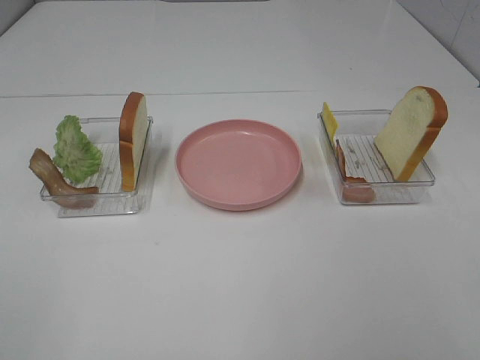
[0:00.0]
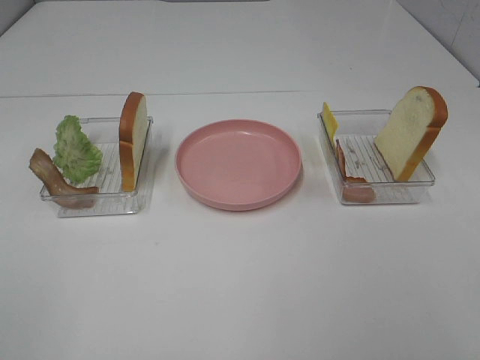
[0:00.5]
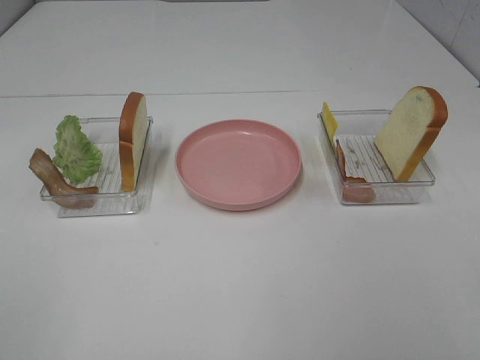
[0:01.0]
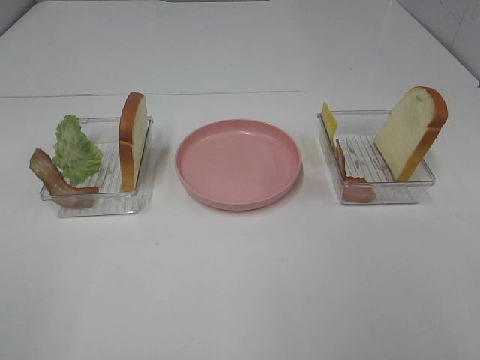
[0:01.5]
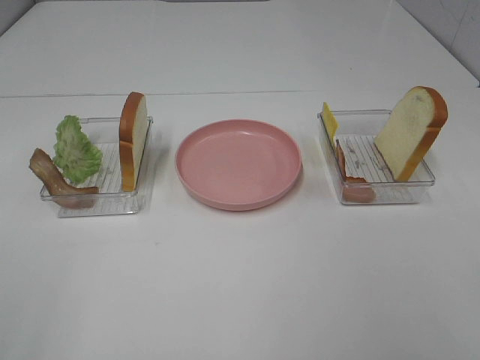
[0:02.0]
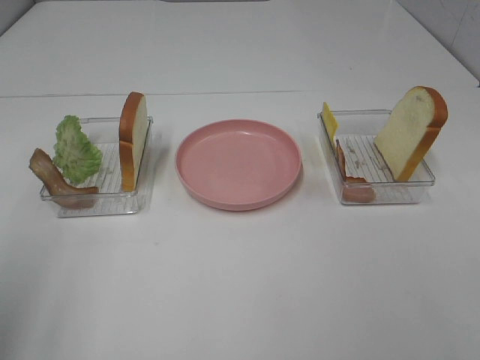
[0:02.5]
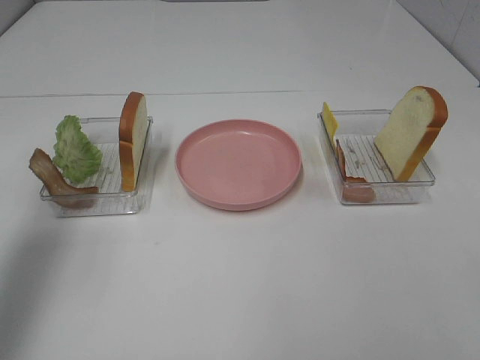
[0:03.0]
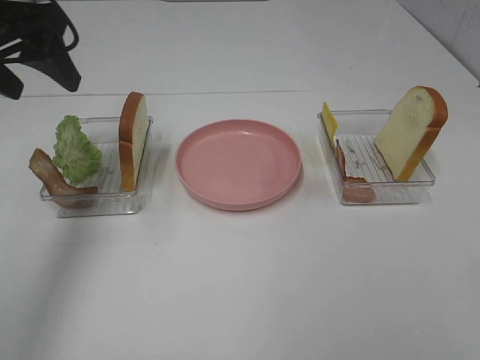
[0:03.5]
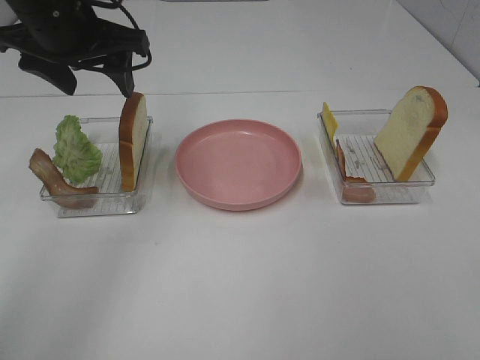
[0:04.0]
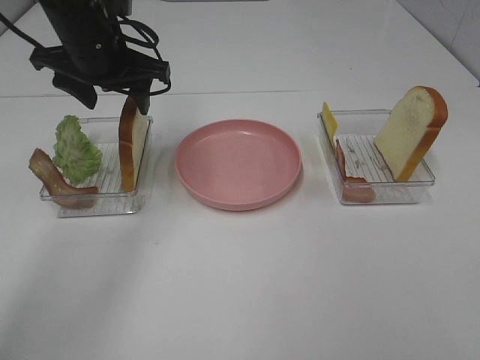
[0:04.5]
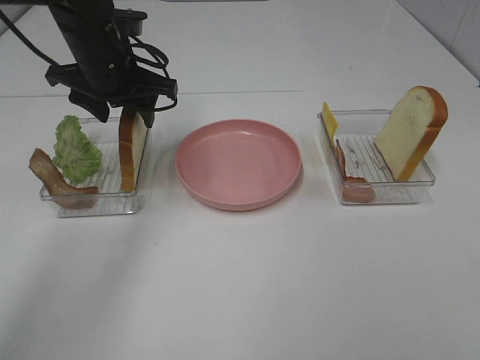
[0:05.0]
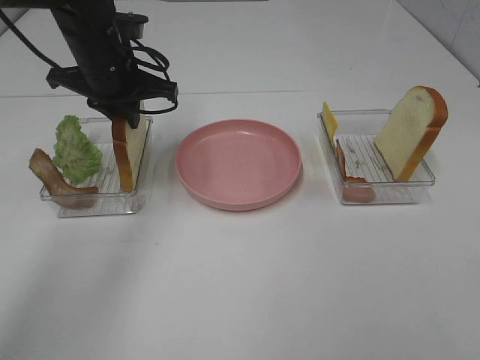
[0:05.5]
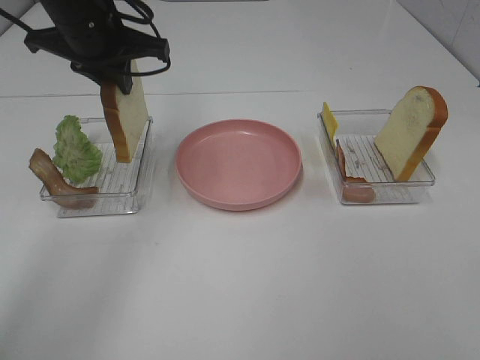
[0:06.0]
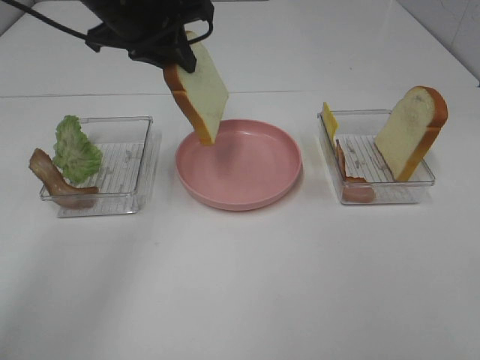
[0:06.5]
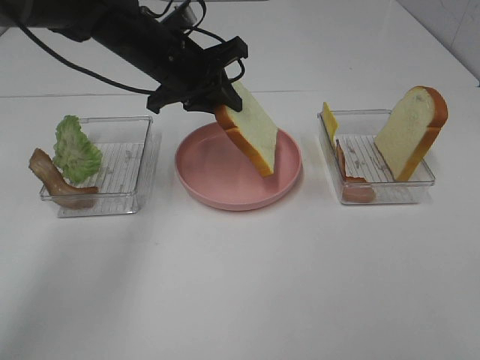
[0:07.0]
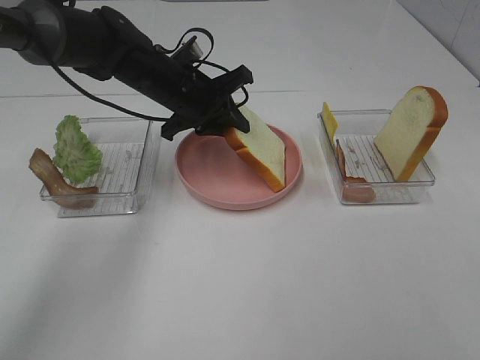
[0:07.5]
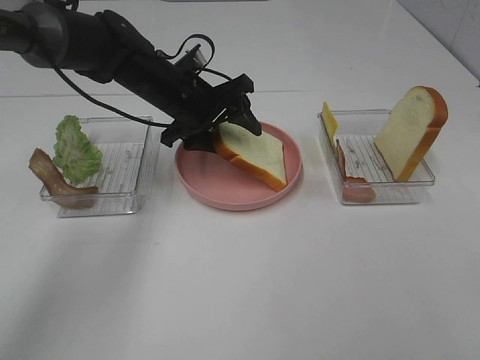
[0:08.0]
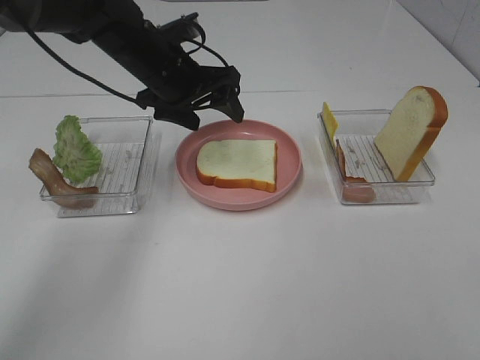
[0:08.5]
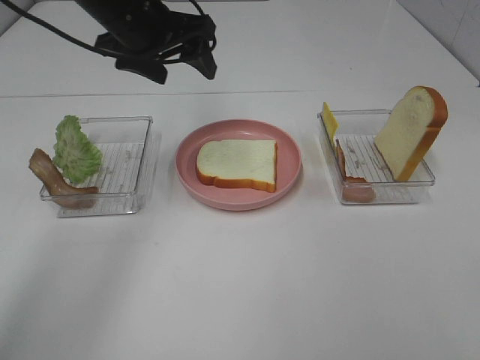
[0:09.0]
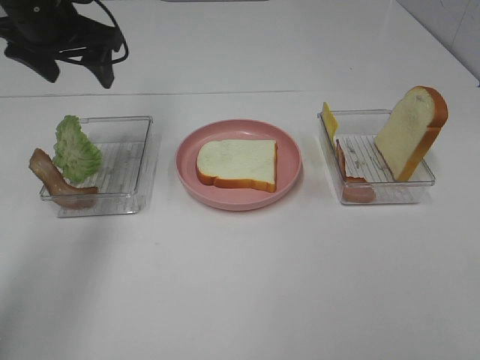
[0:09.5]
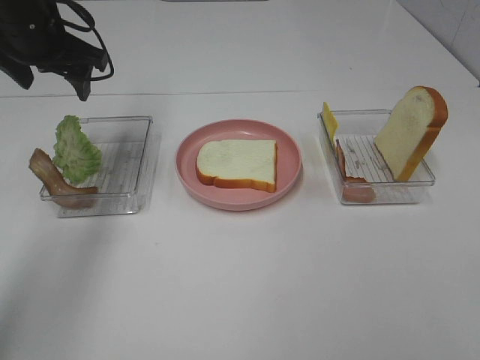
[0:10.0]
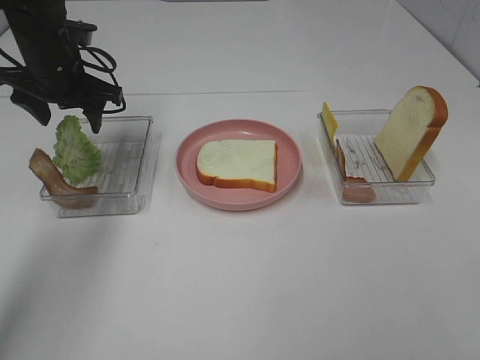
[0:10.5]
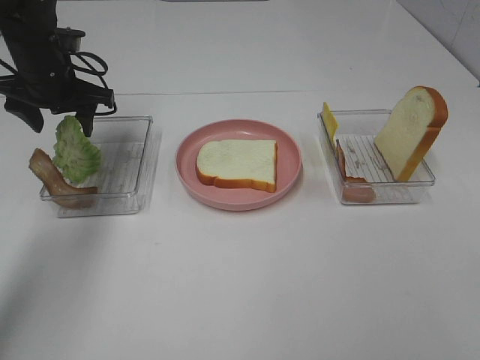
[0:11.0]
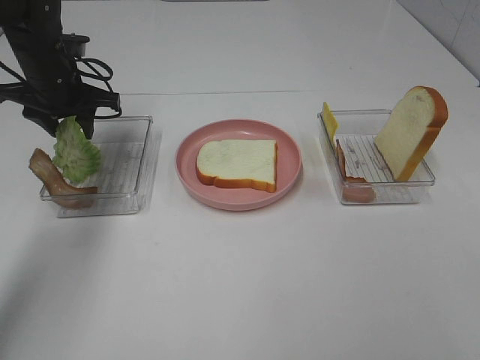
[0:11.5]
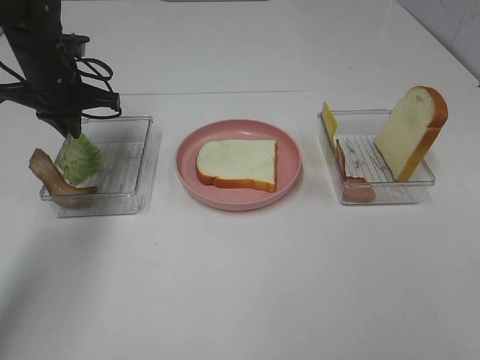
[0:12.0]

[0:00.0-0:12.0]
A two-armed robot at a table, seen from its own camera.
Task of the whole recording: Make sandwiches.
Step, 0:00.0 to 0:05.5: Left hand:grab the bread slice.
Step, 0:06.0 to 0:08.5: Left hand:place the bread slice on the plate.
0:02.0 to 0:04.0: The left gripper goes roughly 40 cm forward.
0:04.0 to 0:06.0: The left gripper reaches roughly 10 cm downward, then returns, and closes.
0:06.0 to 0:08.0: The left gripper heads downward and to the right, covering about 15 cm, and opens its fingers.
0:08.0 to 0:10.0: The left gripper goes roughly 20 cm to the left and upward.
0:10.0 to 0:12.0: The left gripper is displaced downward by some 10 cm, and closes its fingers.

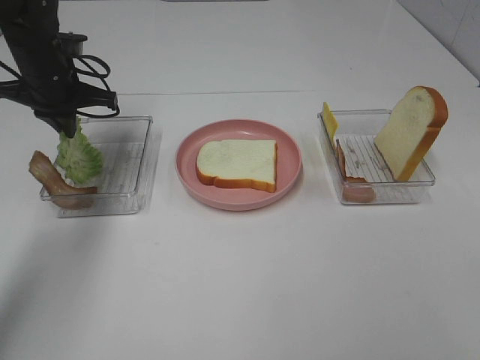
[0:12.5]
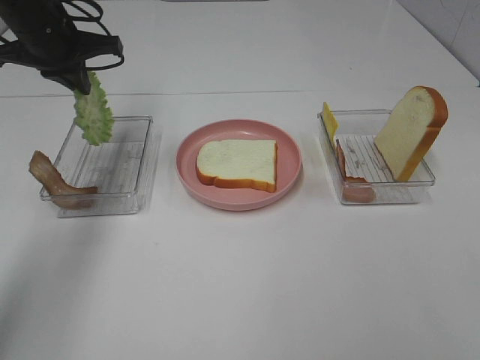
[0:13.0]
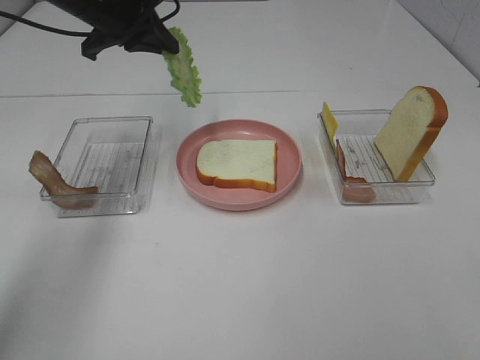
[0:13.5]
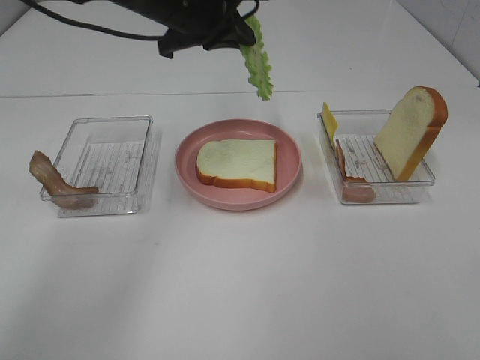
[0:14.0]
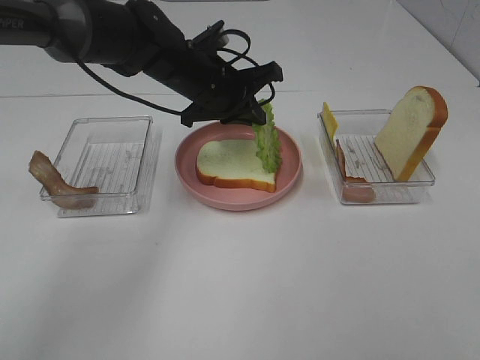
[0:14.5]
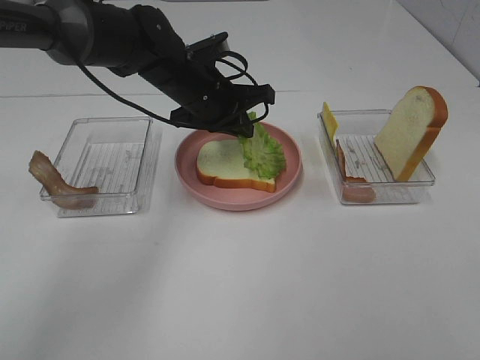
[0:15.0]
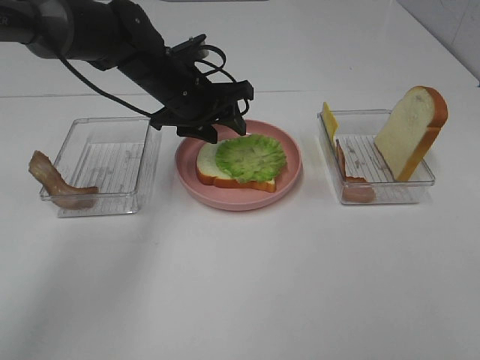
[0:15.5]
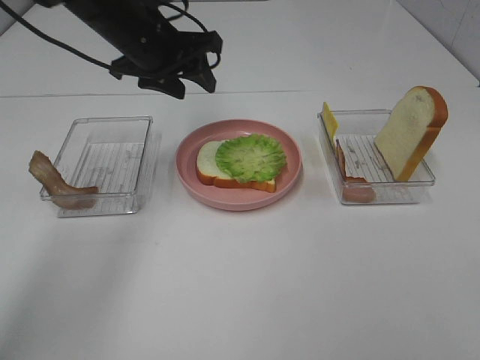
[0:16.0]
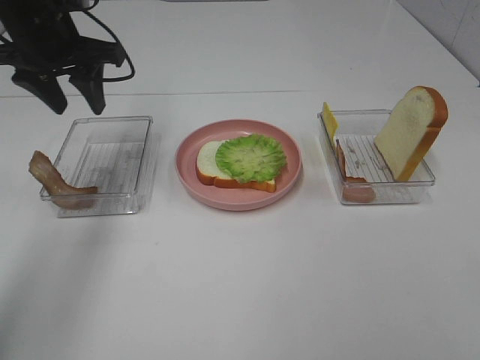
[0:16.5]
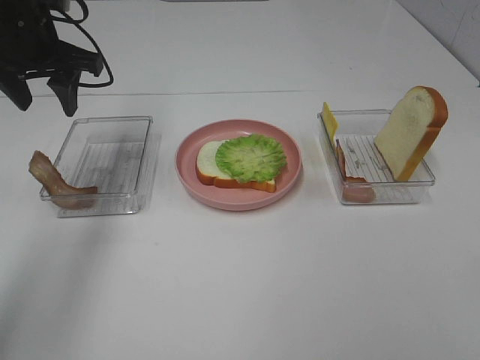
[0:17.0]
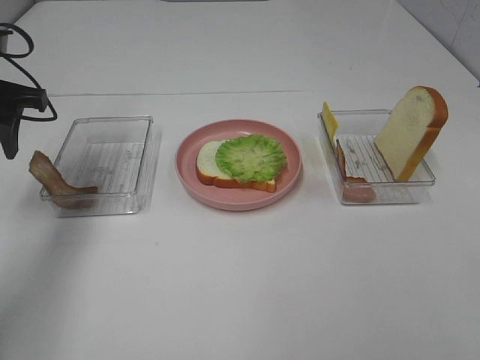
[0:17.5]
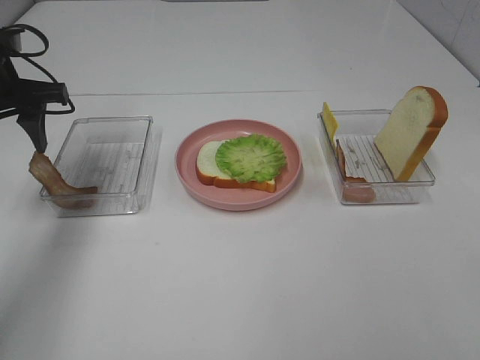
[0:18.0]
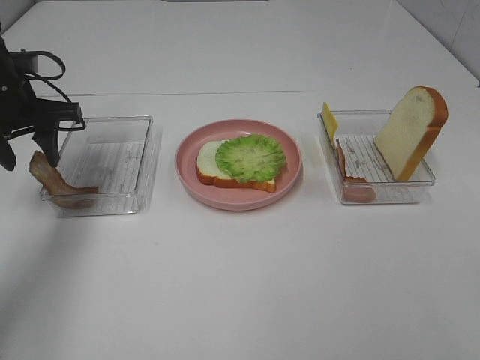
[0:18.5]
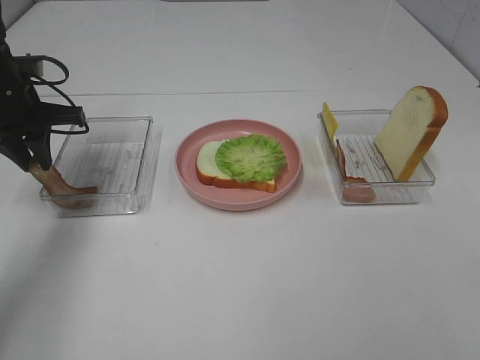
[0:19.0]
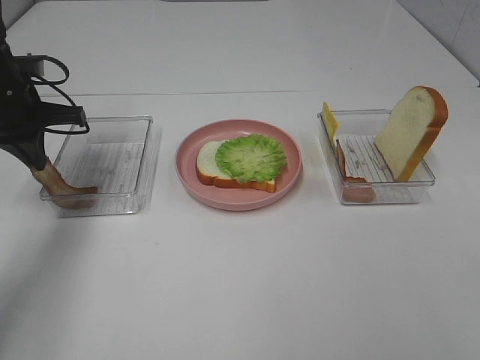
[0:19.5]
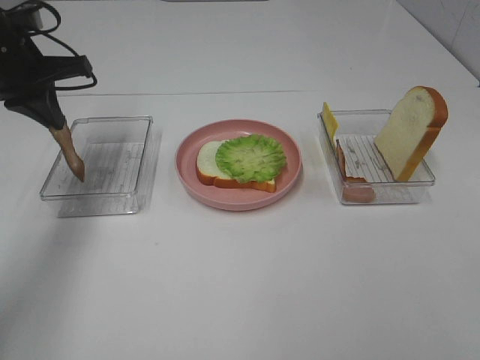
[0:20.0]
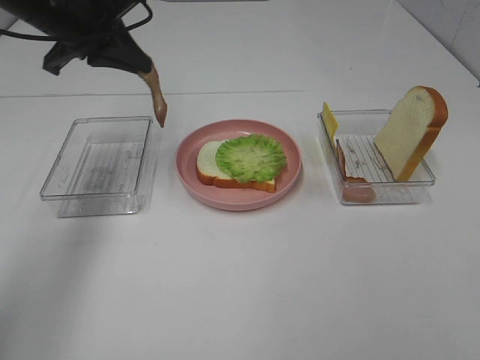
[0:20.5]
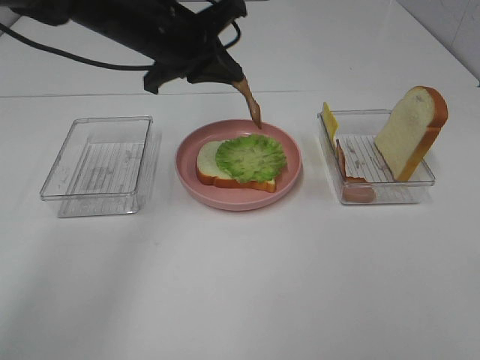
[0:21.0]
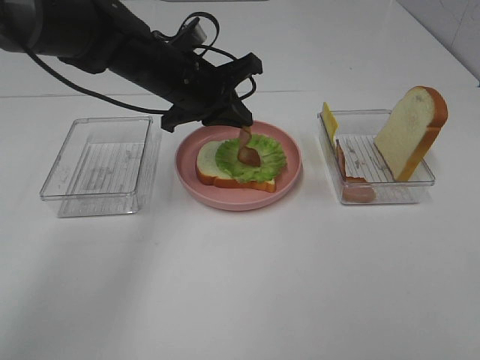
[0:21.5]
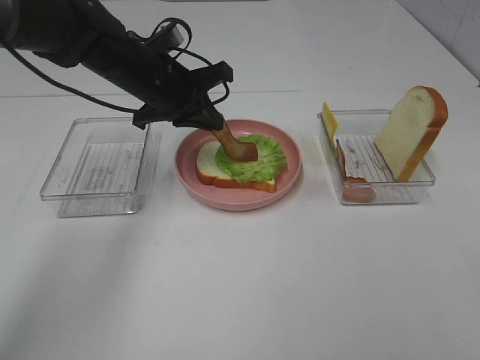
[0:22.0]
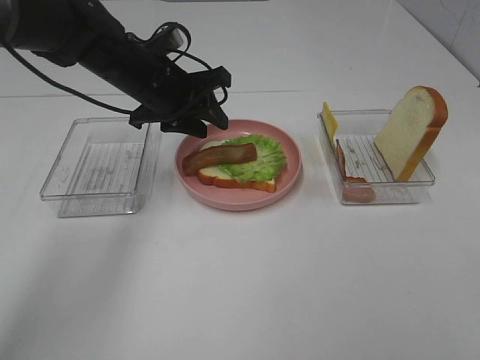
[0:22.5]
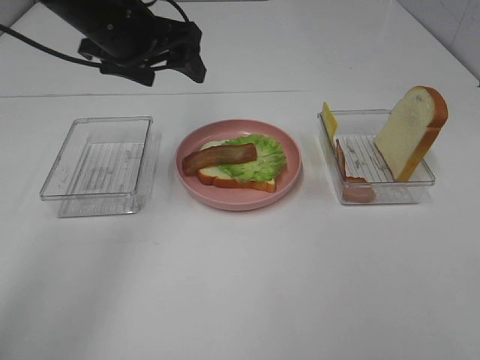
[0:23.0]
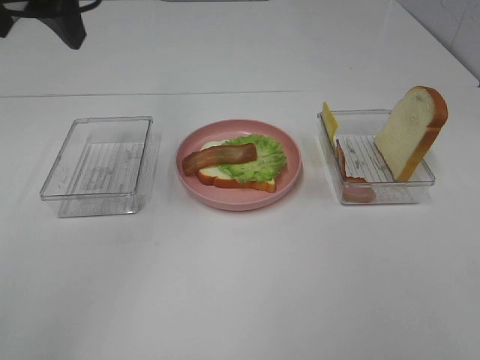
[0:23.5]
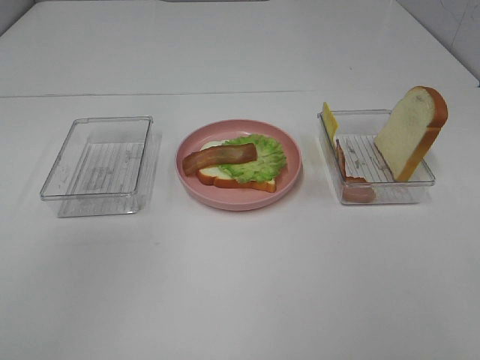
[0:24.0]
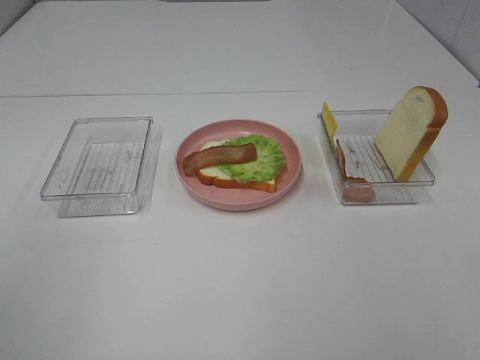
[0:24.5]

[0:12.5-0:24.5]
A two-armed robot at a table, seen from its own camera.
Task of the whole recording: Make sandwiches.
Step, 0:12.5 to 0:15.5: Left hand:place the lettuce slice on the bread slice.
Step, 0:16.0 to 0:19.5: Left hand:grab the bacon.
Step, 0:20.0 to 0:22.0: Left hand:place bacon on lettuce slice.
0:12.5 to 0:14.5: The left gripper goes roughly 20 cm to the right.
0:14.5 to 0:16.5: The left gripper heads to the left and upward, covering some 20 cm, and opens its fingers.
0:16.5 to 0:18.5: The left gripper is displaced downward and to the left by some 10 cm.
0:18.5 to 0:20.5: The left gripper shifts roughly 10 cm to the right and upward, and closes up.
0:20.5 to 0:22.5: The left gripper is displaced downward and to the right by approximately 10 cm, and opens up.
0:22.5 to 0:24.5: The left gripper shifts about 40 cm backward, upward and to the left, and opens.

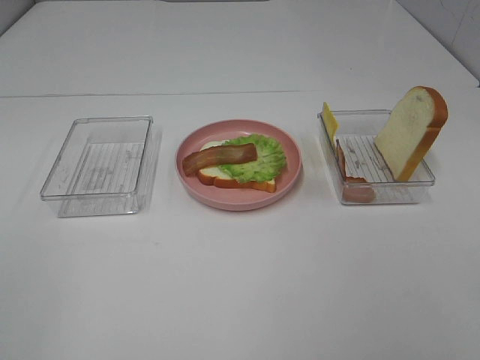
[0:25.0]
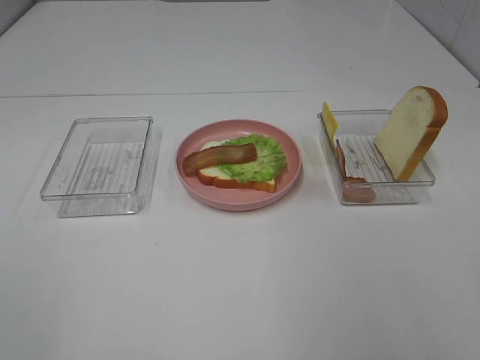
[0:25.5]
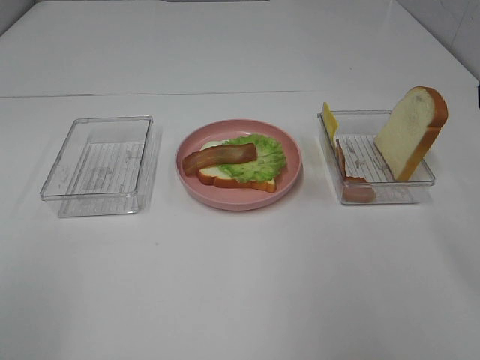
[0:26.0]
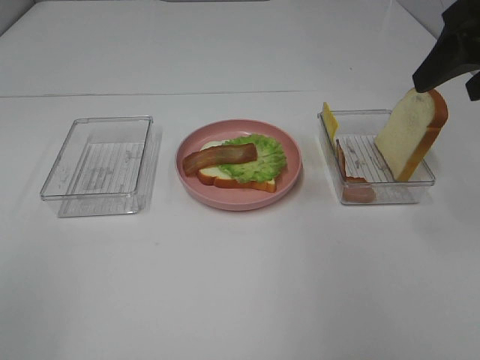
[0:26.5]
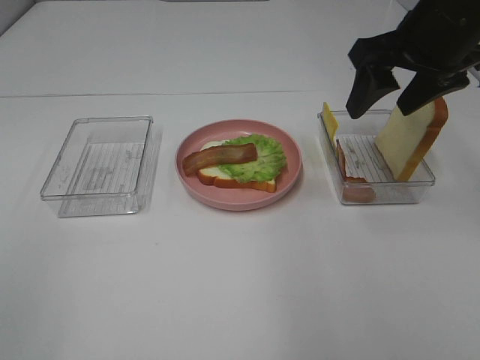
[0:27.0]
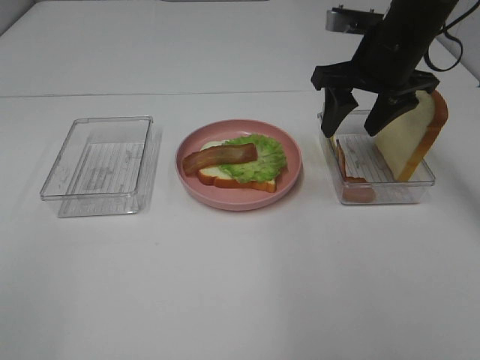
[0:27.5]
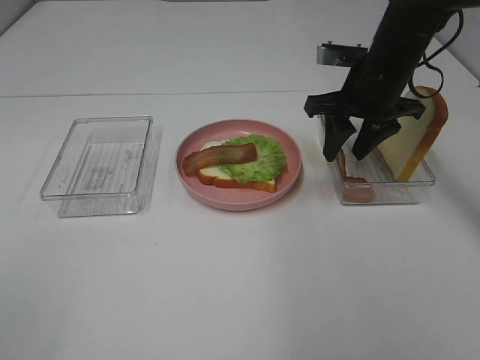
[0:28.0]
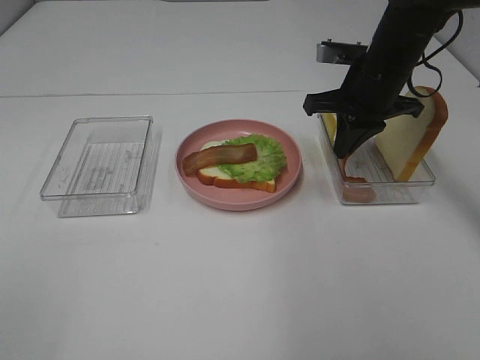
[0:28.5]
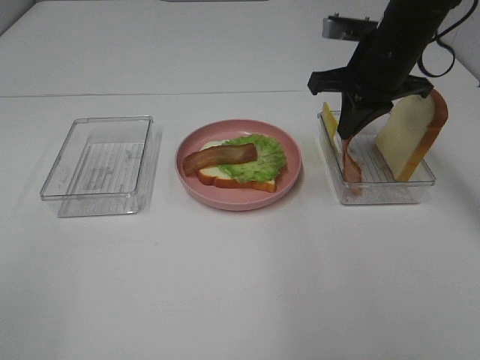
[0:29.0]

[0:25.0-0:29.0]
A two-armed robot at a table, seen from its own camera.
Task of the whole recording: Make sandwiches.
Step, 0:25.0 to 0:28.5: Right hand:grab the bacon.
0:25.0 to 0:27.0: The right gripper is displaced forward by some 35 cm.
0:27.0 to 0:29.0: The right gripper travels forward and downward by some 10 cm, and closes up.
